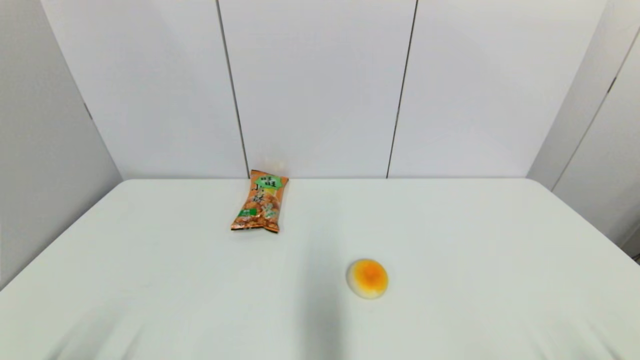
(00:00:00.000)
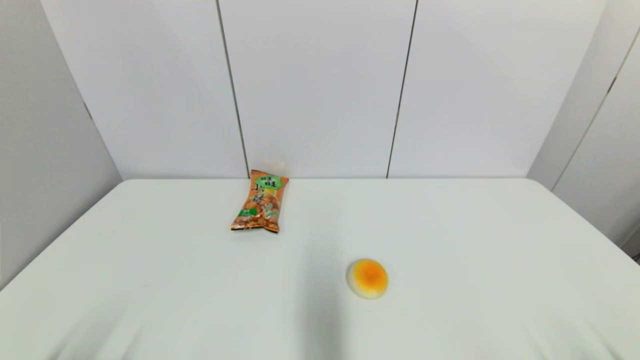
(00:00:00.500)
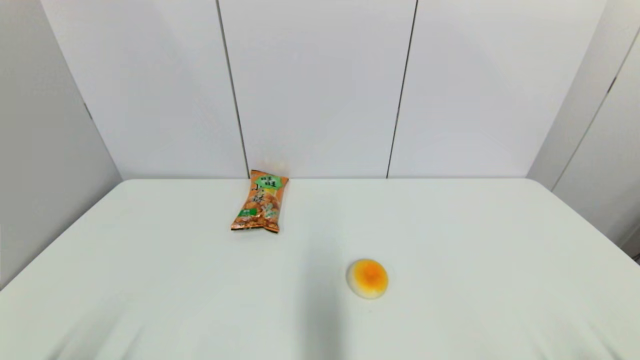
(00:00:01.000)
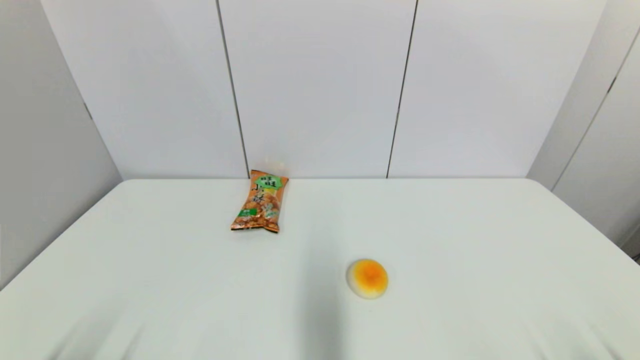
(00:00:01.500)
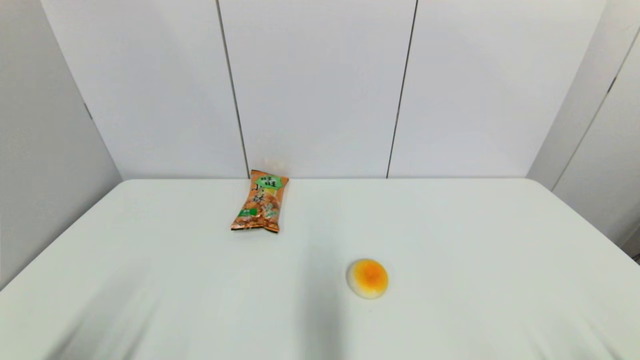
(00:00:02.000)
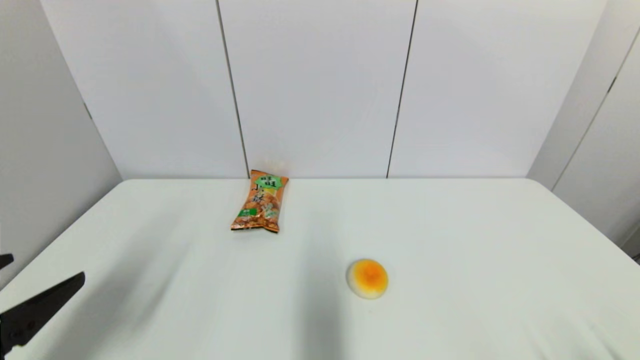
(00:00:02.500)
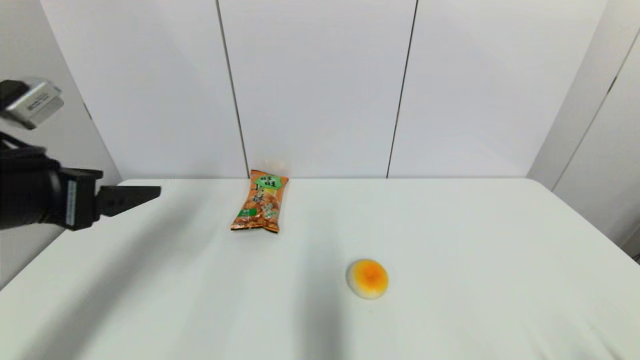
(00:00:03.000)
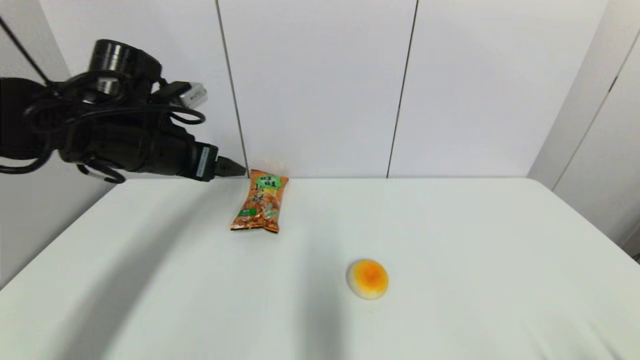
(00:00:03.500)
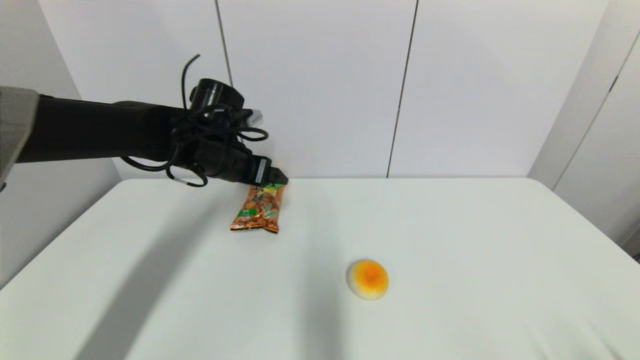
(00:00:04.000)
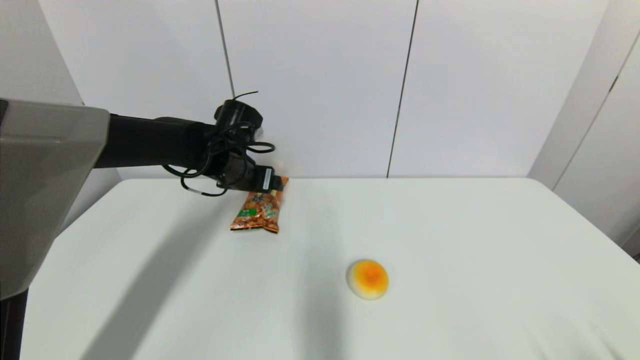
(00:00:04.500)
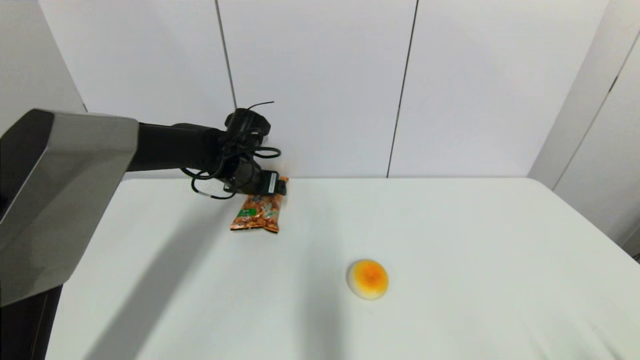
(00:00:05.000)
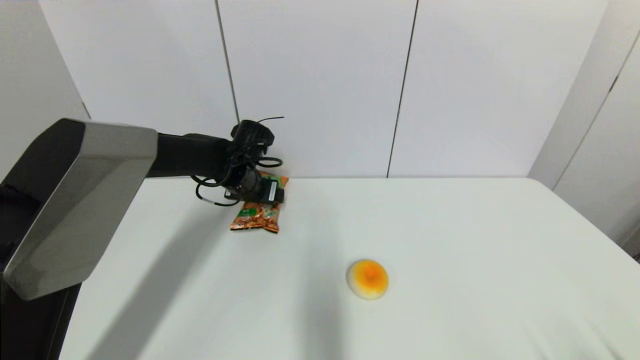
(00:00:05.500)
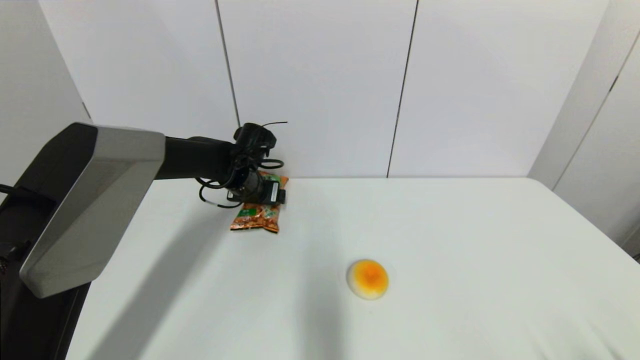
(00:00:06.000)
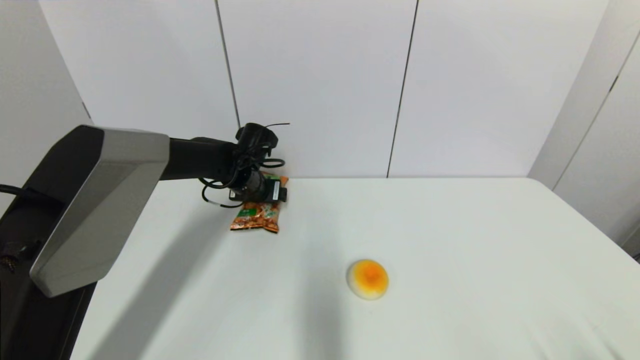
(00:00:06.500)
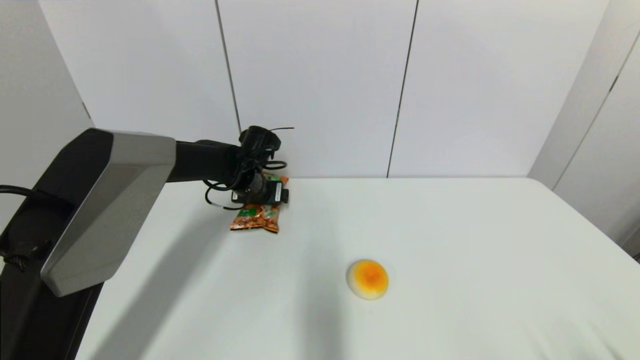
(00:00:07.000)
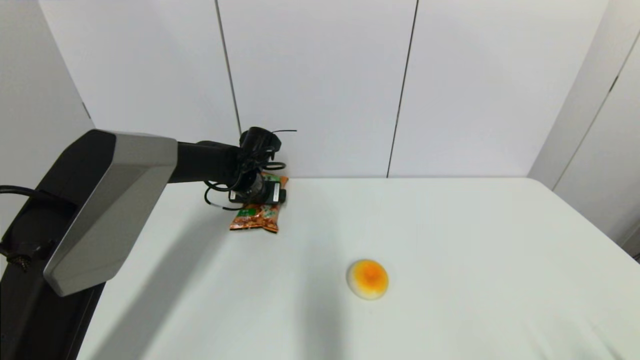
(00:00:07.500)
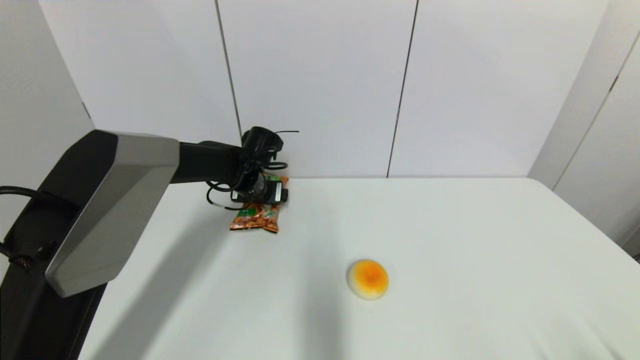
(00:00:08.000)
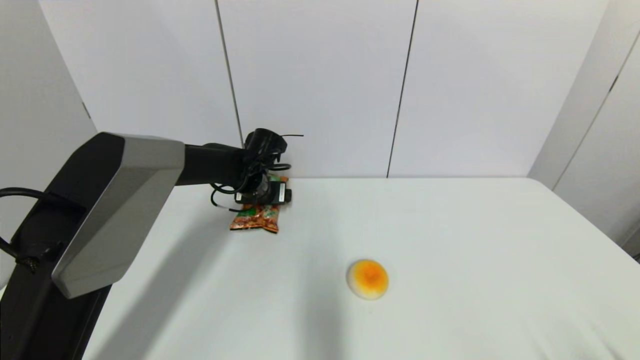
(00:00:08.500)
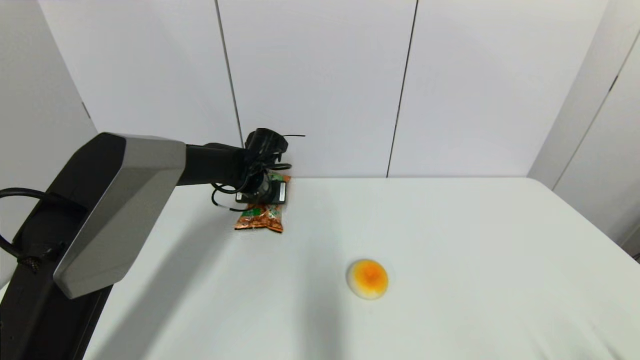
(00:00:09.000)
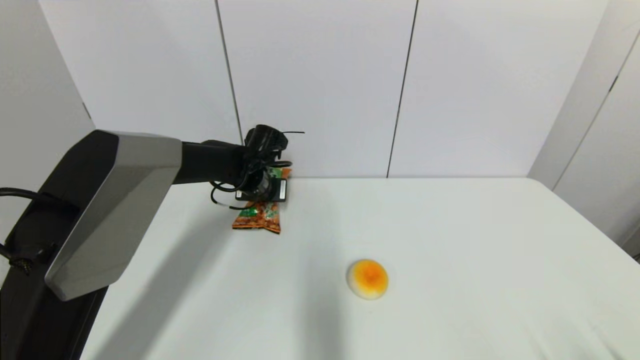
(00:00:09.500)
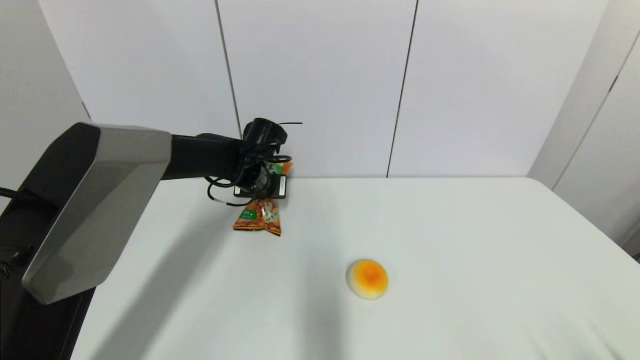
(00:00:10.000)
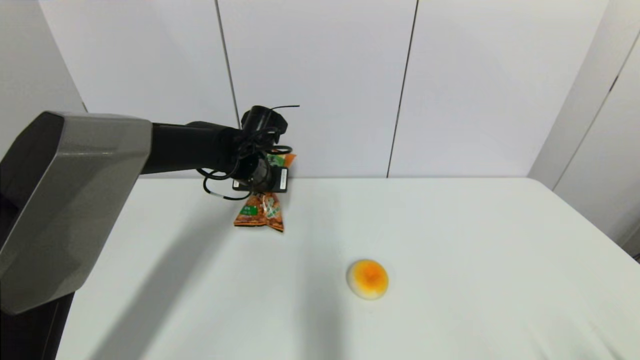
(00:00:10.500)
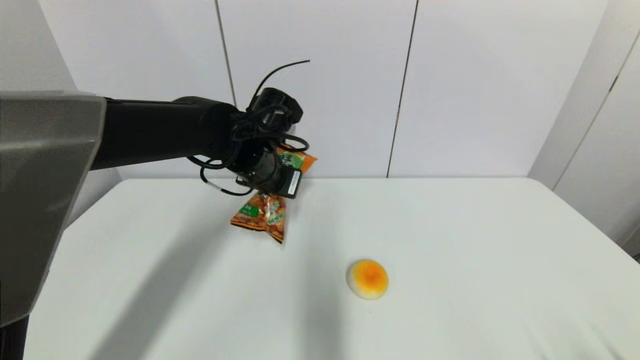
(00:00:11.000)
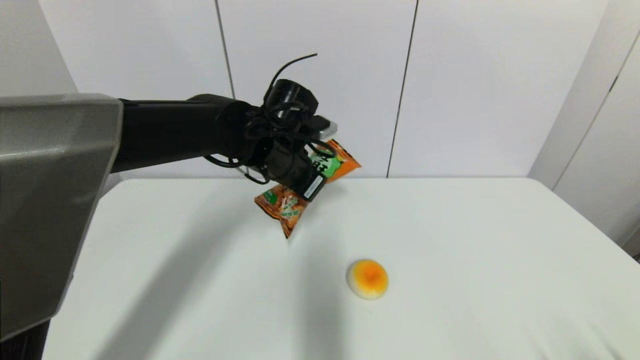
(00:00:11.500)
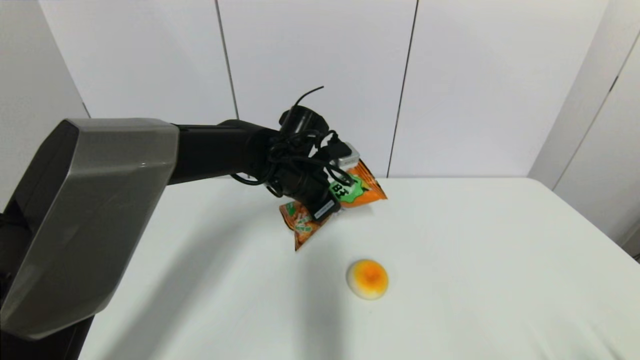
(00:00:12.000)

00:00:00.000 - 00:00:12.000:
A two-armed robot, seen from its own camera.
Step, 00:00:02.500 - 00:00:09.000: Grasp the cookie with left gripper.
00:00:02.000 - 00:00:04.000: The left gripper goes roughly 40 cm forward and to the right.
00:00:04.000 - 00:00:06.000: The left gripper heads downward and forward, covering roughly 10 cm.
00:00:06.000 - 00:00:08.000: There are only small adjustments of the grippers.
00:00:08.000 - 00:00:10.000: The left gripper closes.
00:00:10.000 - 00:00:12.000: The left gripper goes roughly 10 cm to the right and backward.

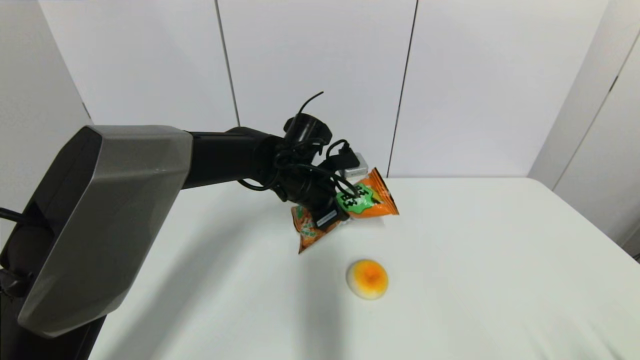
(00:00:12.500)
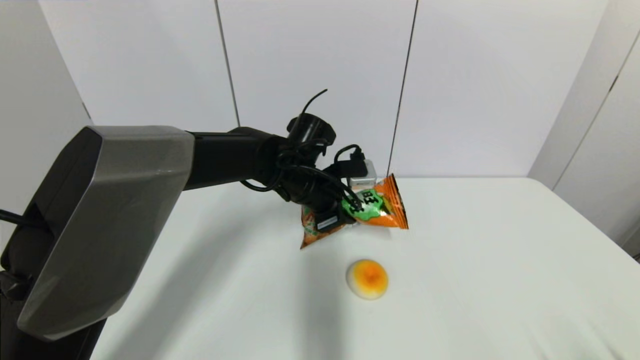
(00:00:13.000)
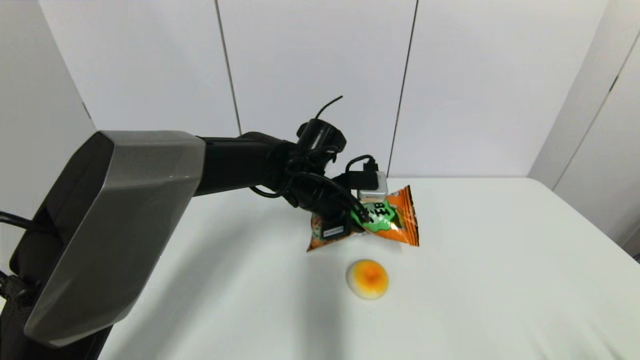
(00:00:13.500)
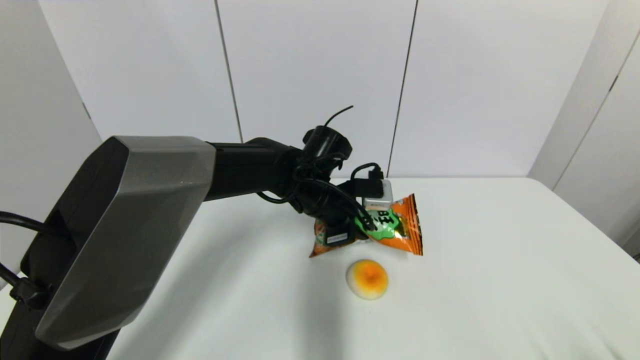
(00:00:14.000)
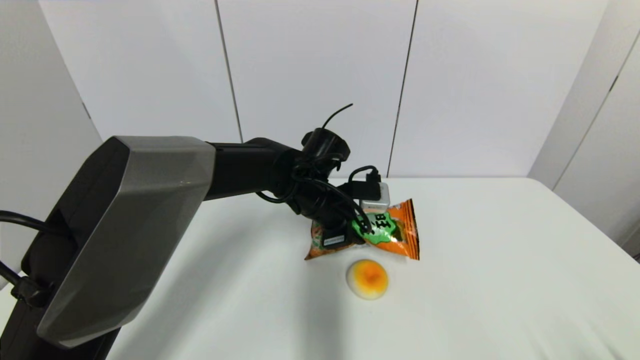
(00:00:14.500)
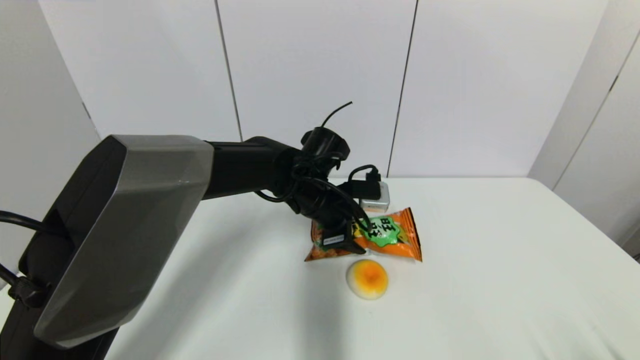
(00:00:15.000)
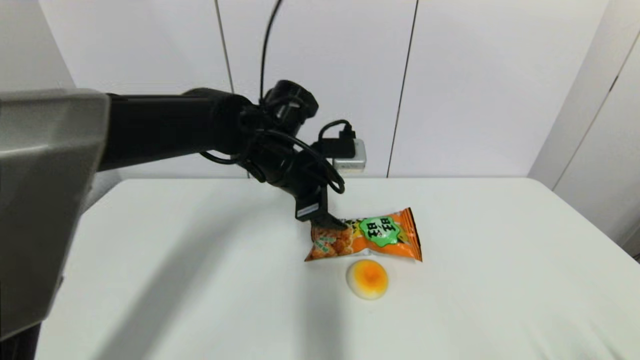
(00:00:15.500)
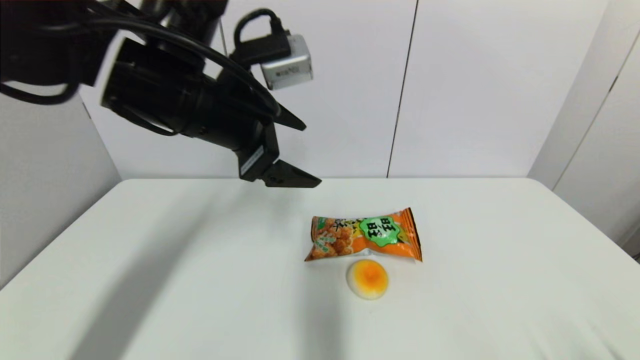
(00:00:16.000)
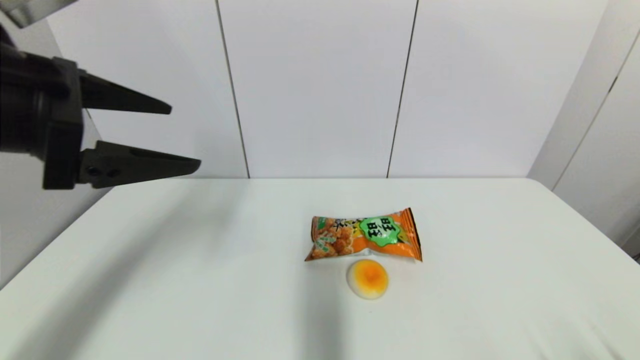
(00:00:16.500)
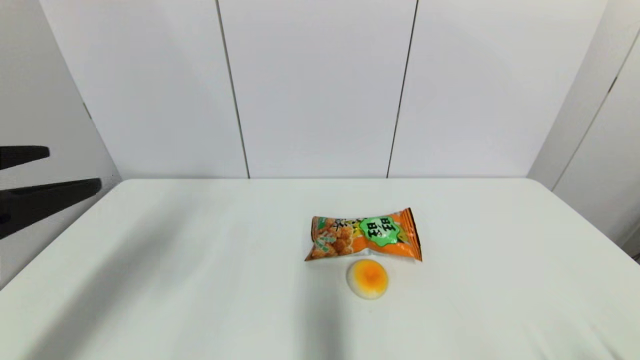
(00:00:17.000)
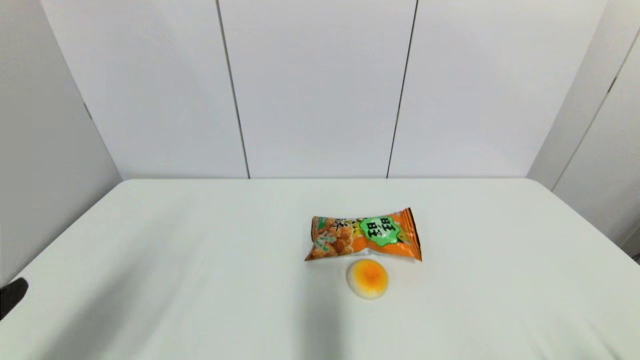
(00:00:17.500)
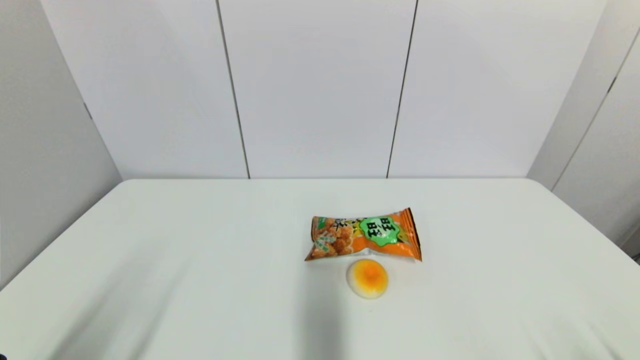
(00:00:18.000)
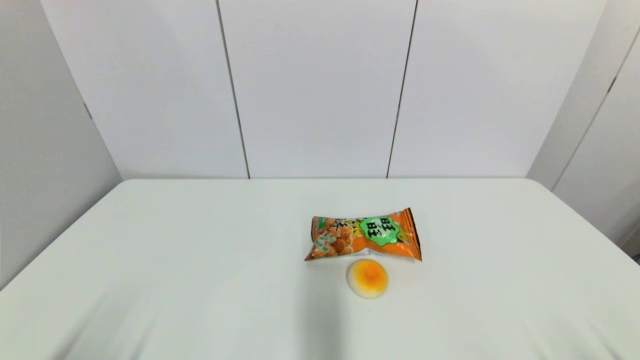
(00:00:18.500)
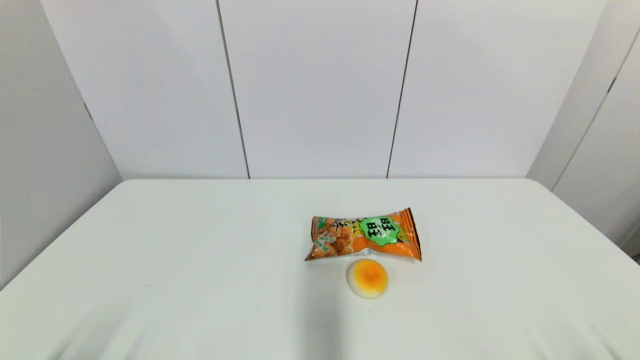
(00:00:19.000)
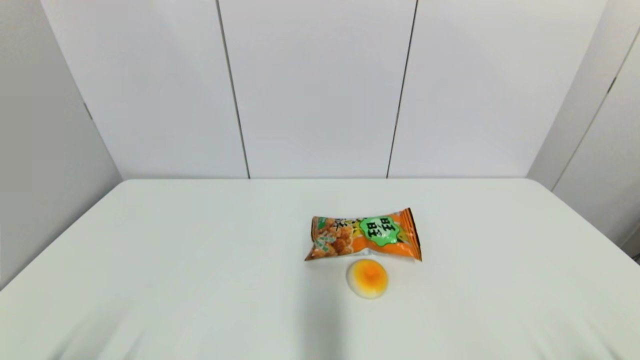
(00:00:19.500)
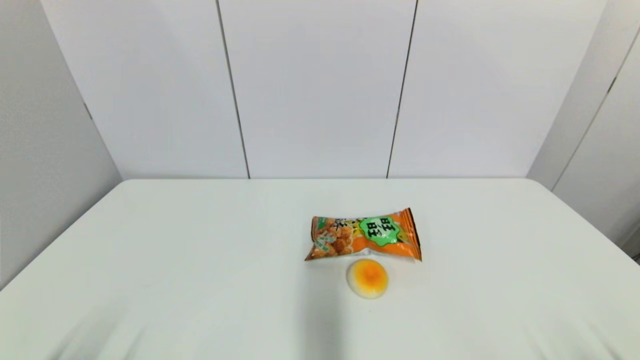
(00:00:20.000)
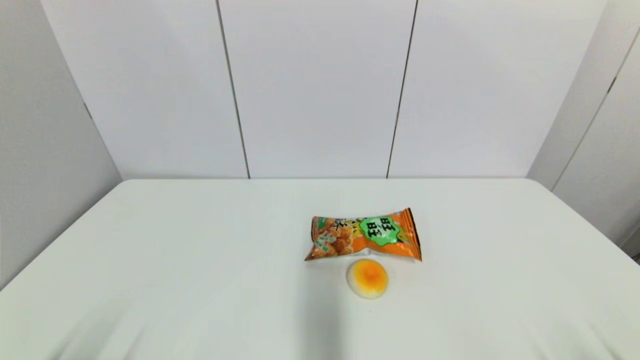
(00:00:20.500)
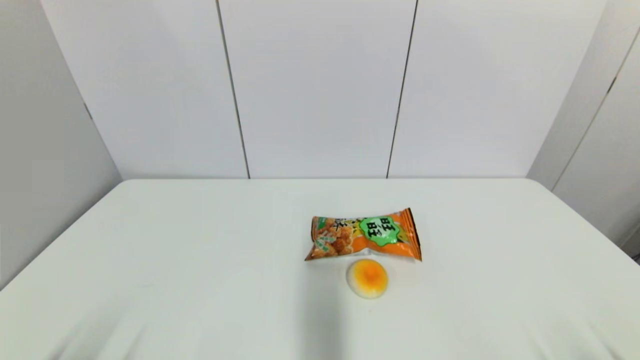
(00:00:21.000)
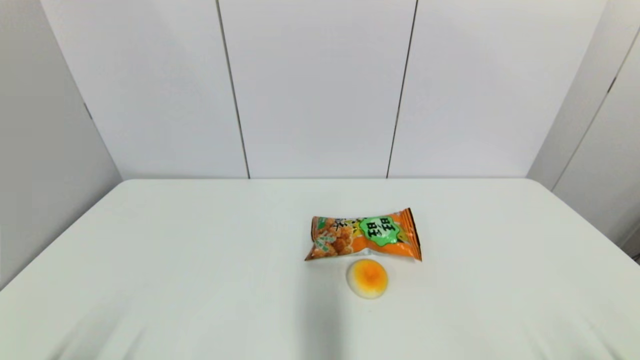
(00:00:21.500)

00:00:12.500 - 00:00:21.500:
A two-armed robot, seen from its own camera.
Step, 00:00:12.500 - 00:00:15.500: Place the cookie on the table with left gripper.
00:00:14.500 - 00:00:17.000: The left gripper heads to the left, backward and upward, covering roughly 40 cm, and opens up.
00:00:17.000 - 00:00:19.500: The left gripper heads downward and backward, covering roughly 25 cm.
00:00:19.500 - 00:00:21.500: Both grippers stay about where they are.
